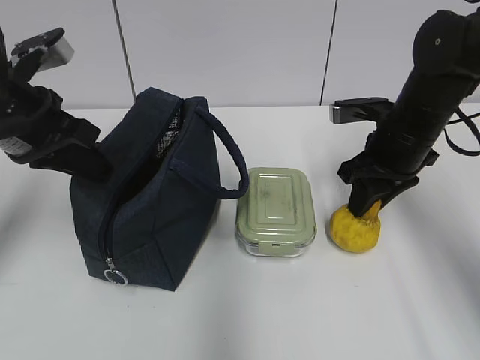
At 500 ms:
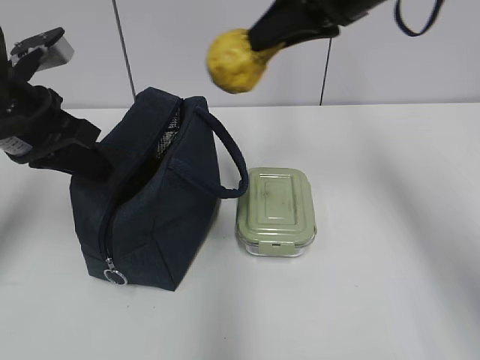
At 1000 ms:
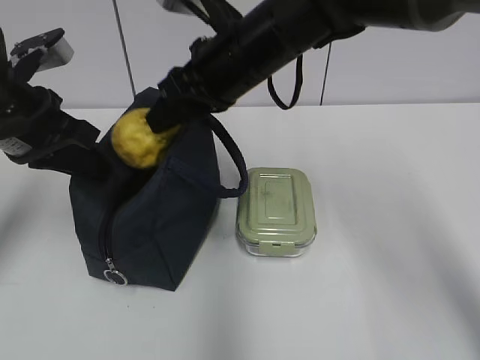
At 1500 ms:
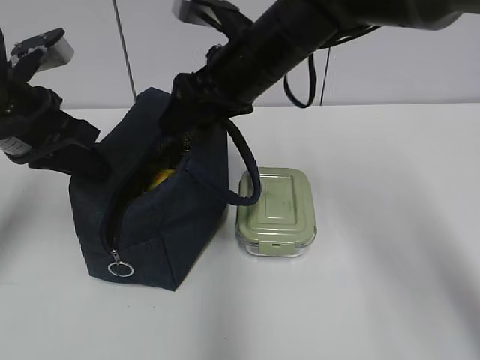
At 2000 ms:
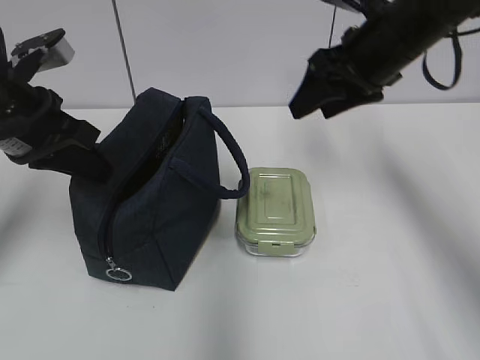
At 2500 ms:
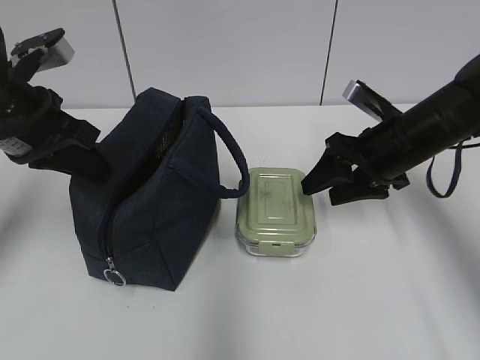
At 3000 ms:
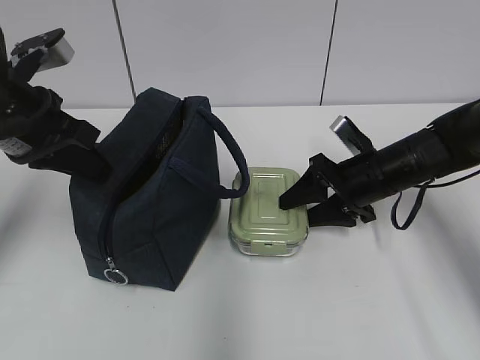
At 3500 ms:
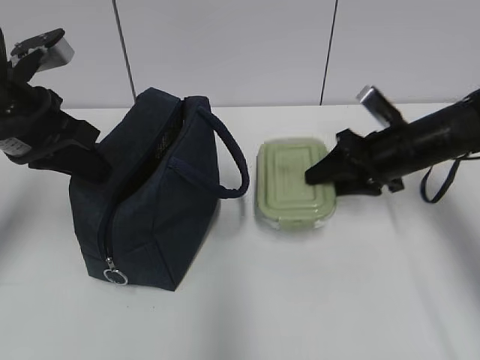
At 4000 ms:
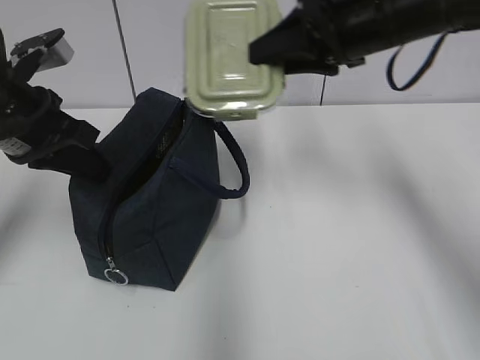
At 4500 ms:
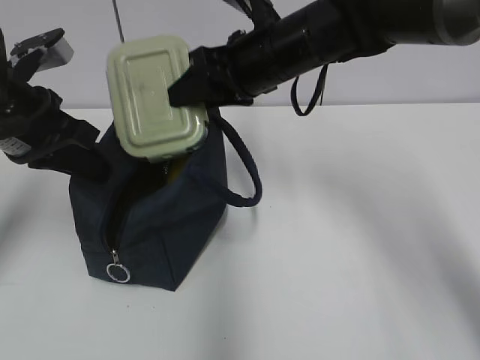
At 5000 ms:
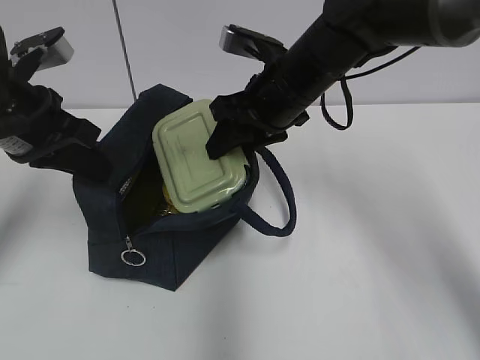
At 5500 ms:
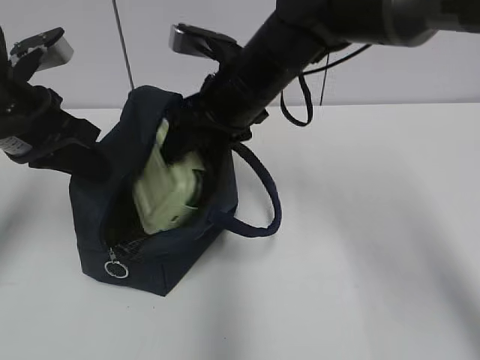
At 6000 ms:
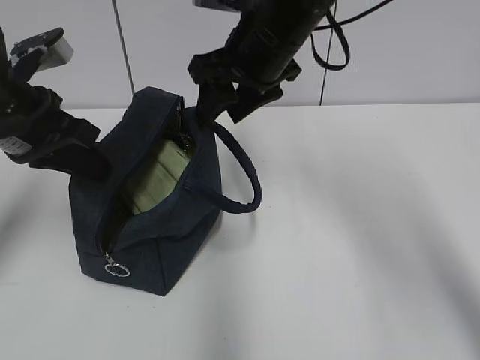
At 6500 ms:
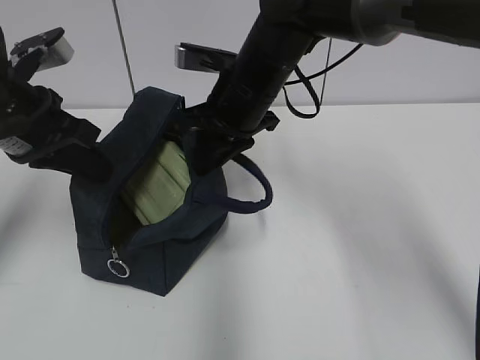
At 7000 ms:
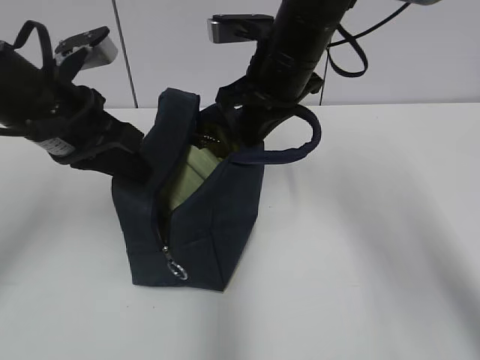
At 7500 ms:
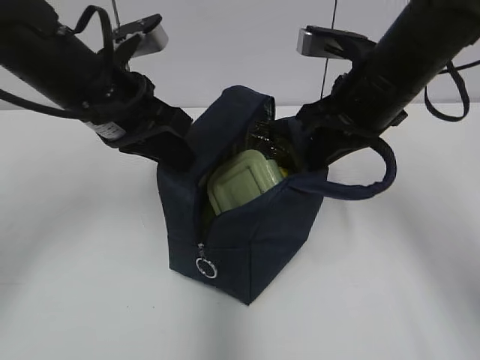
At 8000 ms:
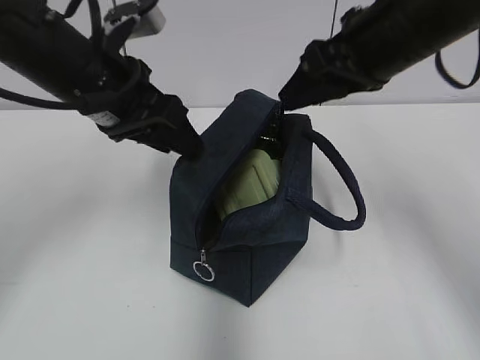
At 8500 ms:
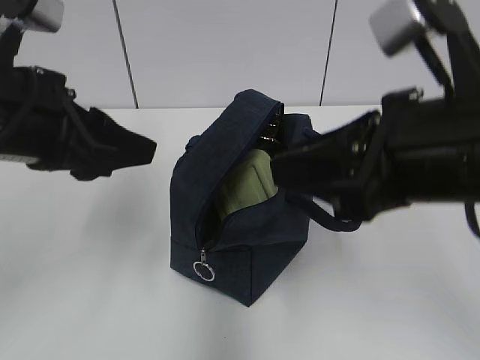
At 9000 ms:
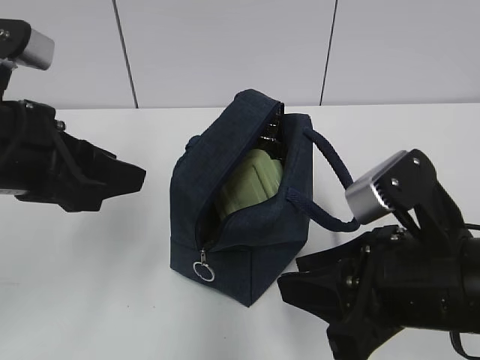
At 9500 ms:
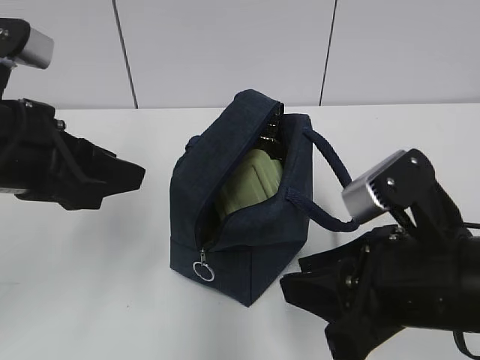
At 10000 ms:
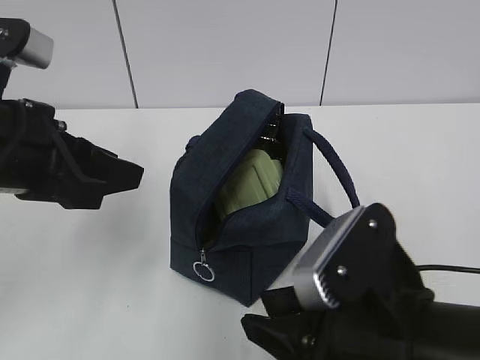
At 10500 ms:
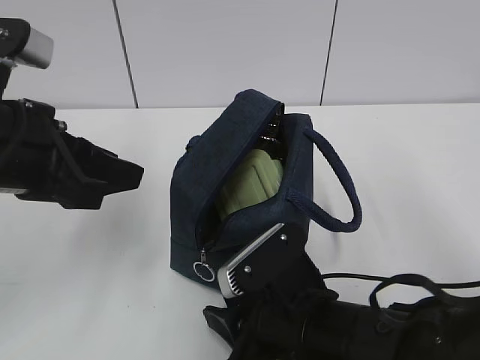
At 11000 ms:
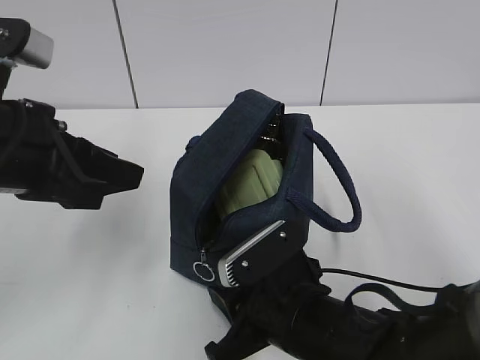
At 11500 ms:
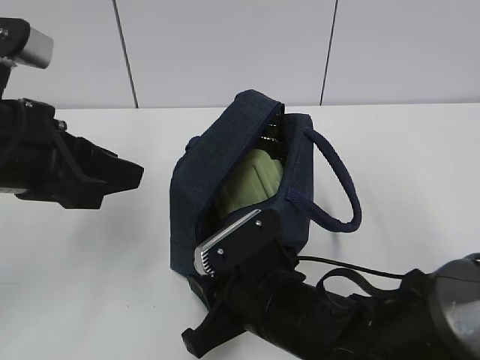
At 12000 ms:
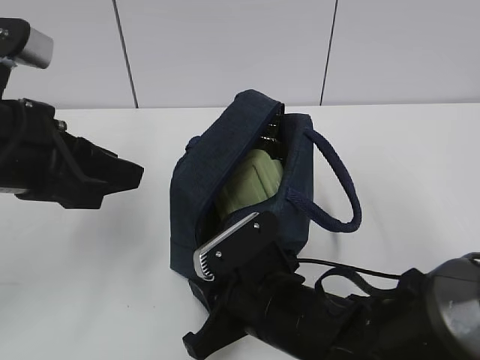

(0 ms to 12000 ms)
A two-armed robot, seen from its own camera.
Step, 500 ms - 1000 ms: Place it into the bag with your right hand.
Step, 2000 ms - 3000 ms: Grab the lunch box with your right hand.
Step, 6000 ms - 6500 ms: Grab the lunch bag with your right hand.
Step, 7000 ms - 7500 ms: Move the lunch bag to the right.
0 ms - 2000 ms: The right gripper heads upward, covering approximately 10 cm, moves some 20 cm to the left and comes back, and opens up.
2000 ms - 4000 ms: The right gripper goes downward and returns, approximately 15 cm each way.
4000 ms - 6000 ms: The right gripper heads to the left, covering approximately 10 cm.
6000 ms - 8000 ms: The left gripper heads to the right, covering about 10 cm, and opens its fingers, while the right gripper goes about 10 cm to the right and backward, and closes, then reopens.
8000 ms - 10000 ms: The left gripper goes roughly 10 cm backward. The right gripper shifts roughly 25 cm backward and downward.
10000 ms - 12000 ms: The right gripper goes roughly 15 cm downward, forward and to the left.

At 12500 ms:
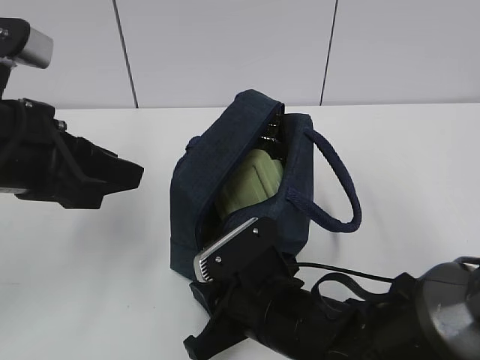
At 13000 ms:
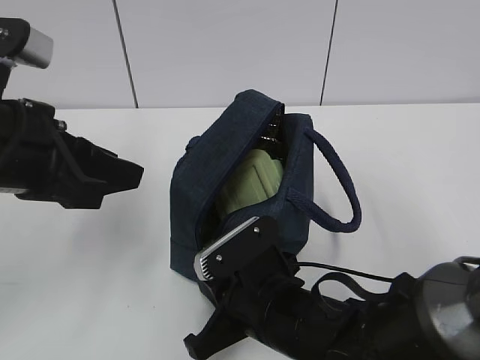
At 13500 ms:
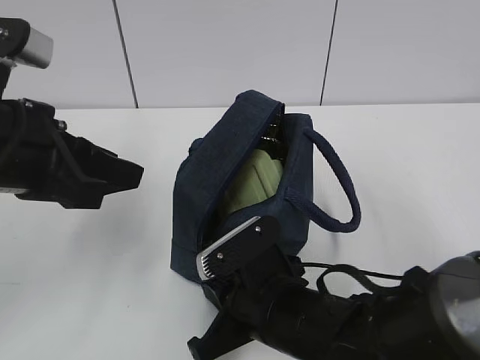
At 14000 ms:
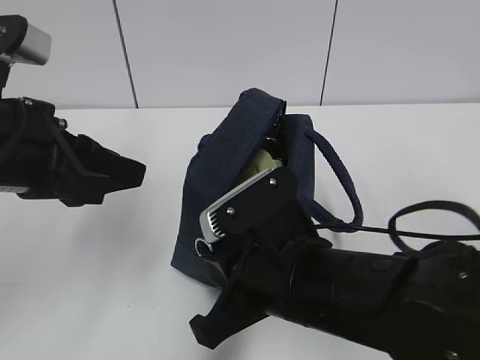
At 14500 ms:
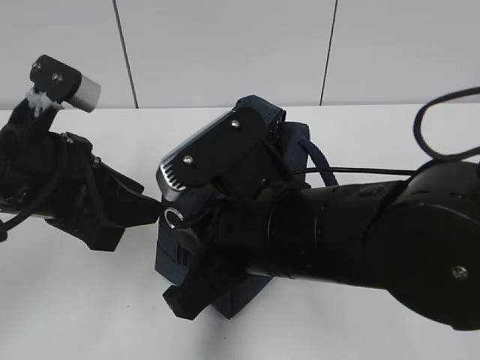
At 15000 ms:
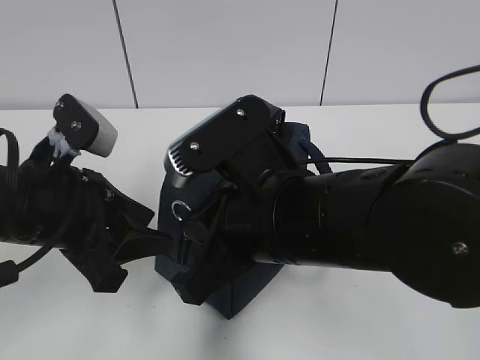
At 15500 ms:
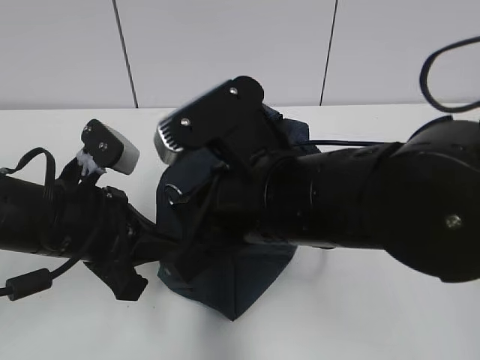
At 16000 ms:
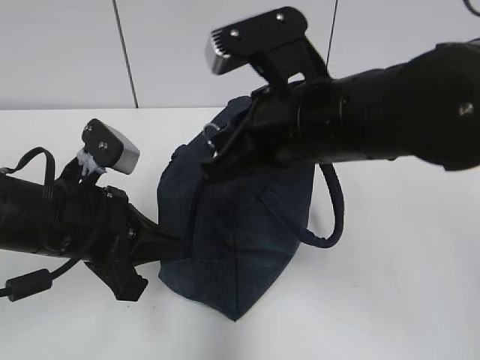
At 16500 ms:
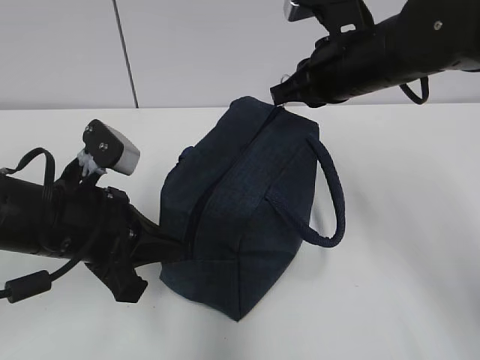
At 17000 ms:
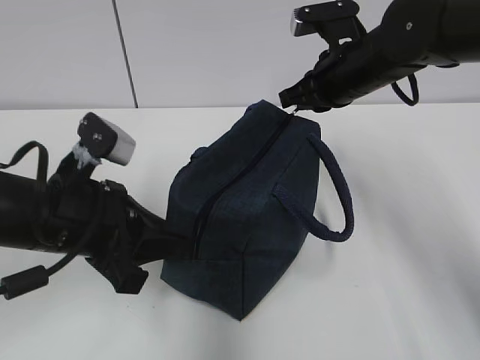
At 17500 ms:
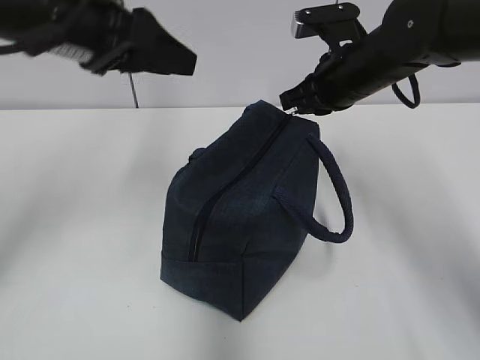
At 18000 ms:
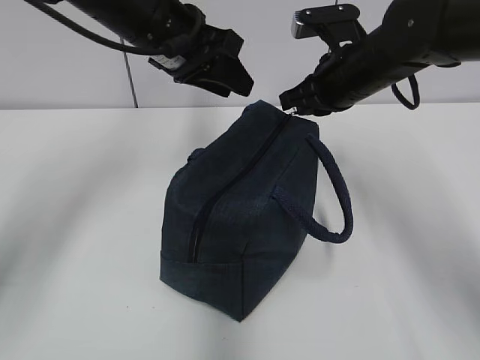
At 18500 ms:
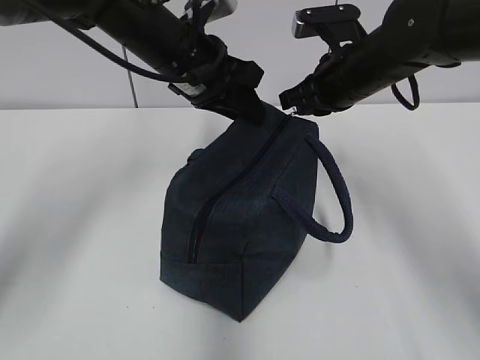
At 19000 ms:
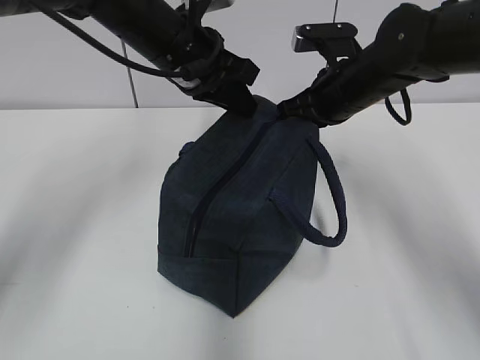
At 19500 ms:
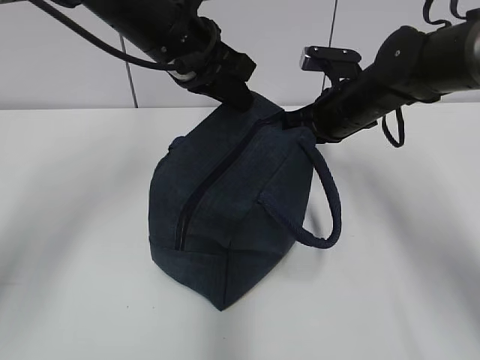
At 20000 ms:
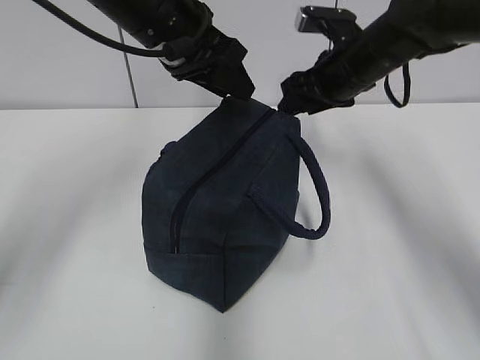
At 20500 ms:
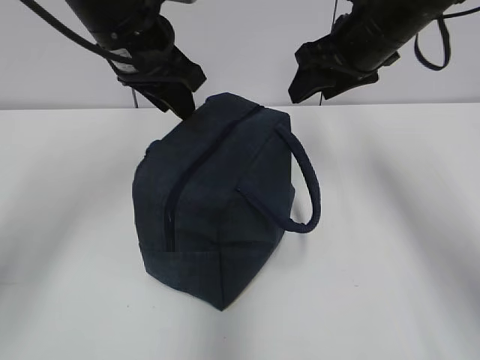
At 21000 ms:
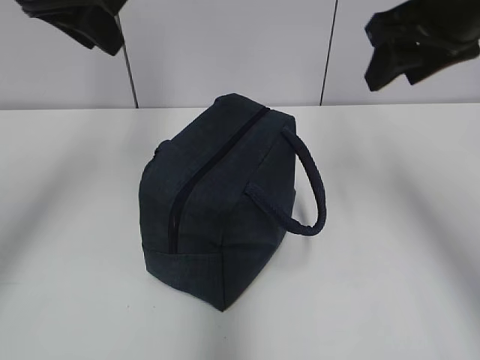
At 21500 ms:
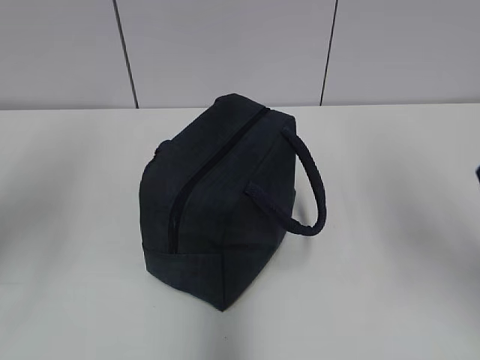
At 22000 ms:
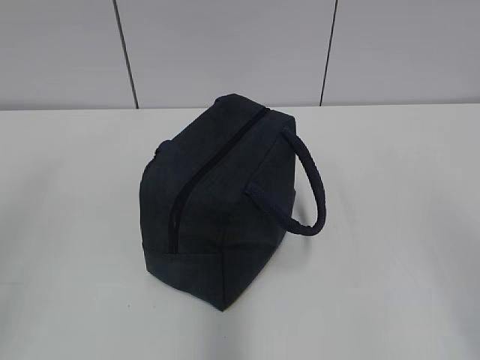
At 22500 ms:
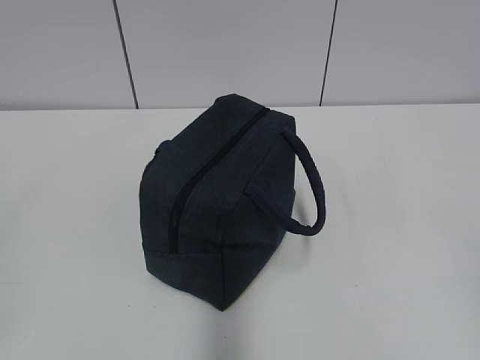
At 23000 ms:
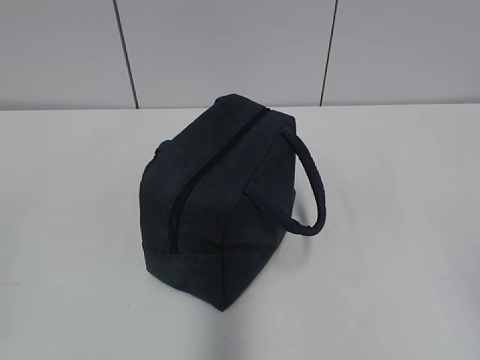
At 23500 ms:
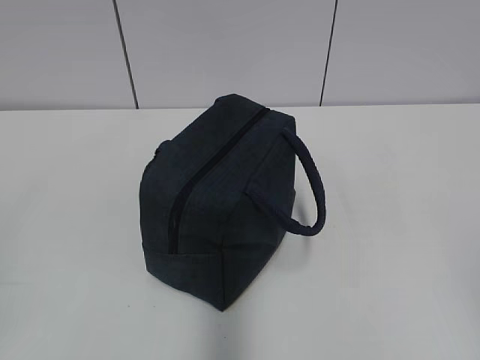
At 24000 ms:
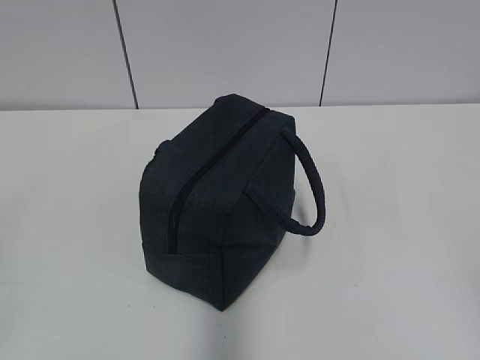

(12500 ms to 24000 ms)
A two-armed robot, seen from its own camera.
Step, 12500 ms - 17000 ms: Grab the lunch bag with your left hand.
Step, 17500 ms - 19500 ms: Pull the zipper with your right hand.
12500 ms - 14500 ms: The right gripper goes some 15 cm upward, and closes its fingers.
14500 ms - 16500 ms: The left gripper goes roughly 5 cm downward, and closes; the right gripper travels forward and to the right by roughly 20 cm.
16500 ms - 18500 ms: The right gripper shifts by some 5 cm. Meanwhile the left gripper shifts some 20 cm forward, upward and to the right.
18500 ms - 20000 ms: The right gripper opens. Meanwhile the left gripper opens its fingers.
20000 ms - 22000 ms: The right gripper moves backward, about 40 cm. Meanwhile the left gripper shifts some 40 cm backward and to the left.
